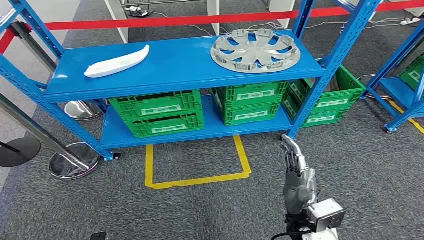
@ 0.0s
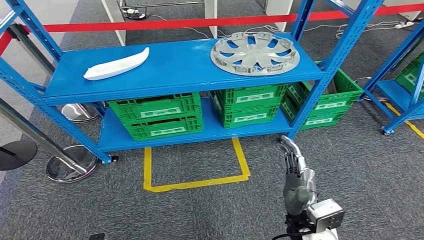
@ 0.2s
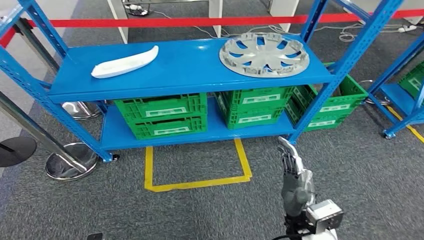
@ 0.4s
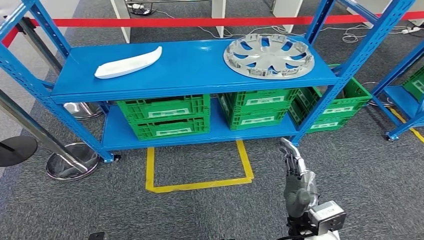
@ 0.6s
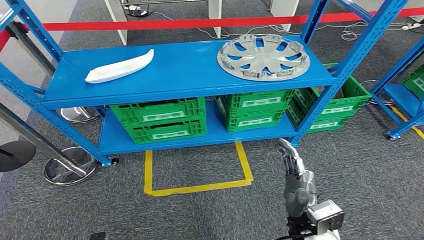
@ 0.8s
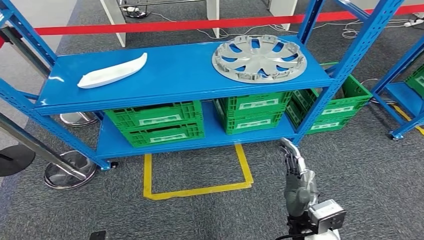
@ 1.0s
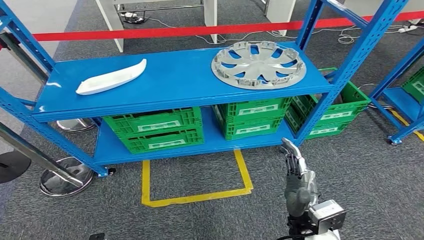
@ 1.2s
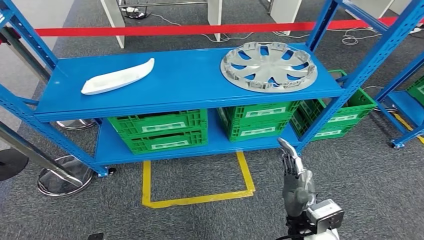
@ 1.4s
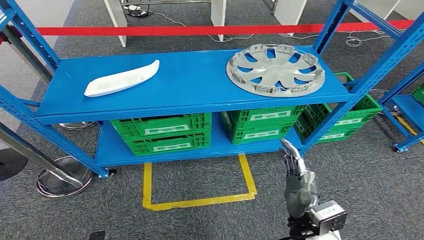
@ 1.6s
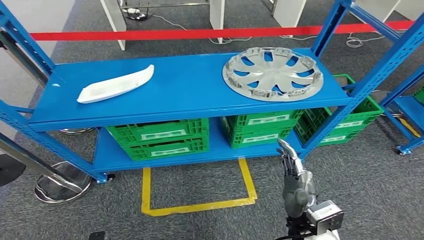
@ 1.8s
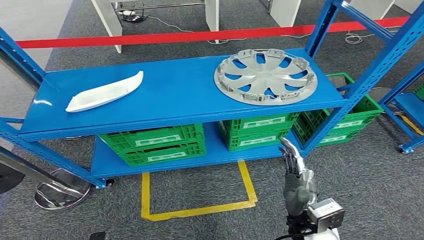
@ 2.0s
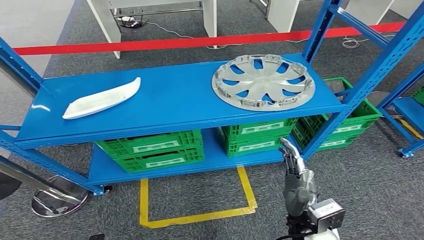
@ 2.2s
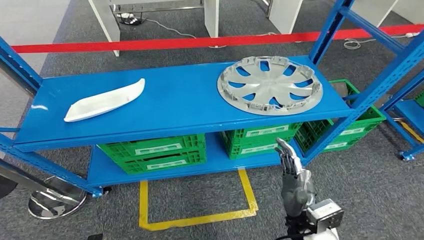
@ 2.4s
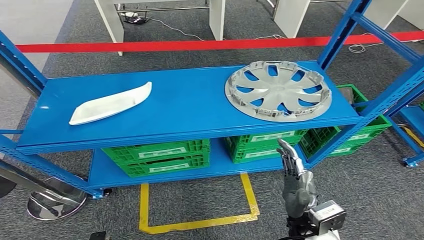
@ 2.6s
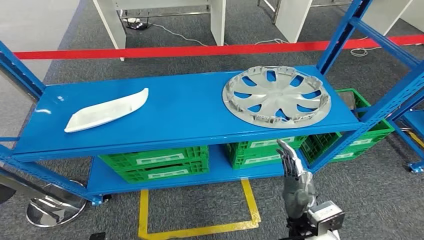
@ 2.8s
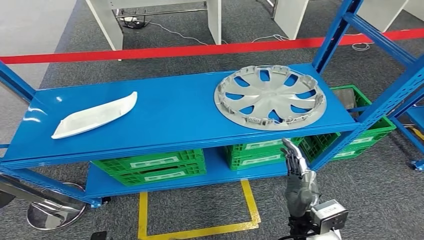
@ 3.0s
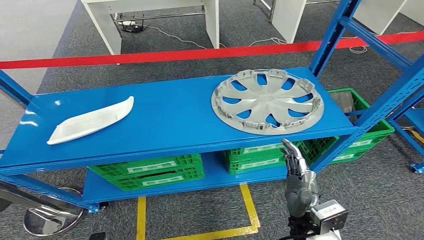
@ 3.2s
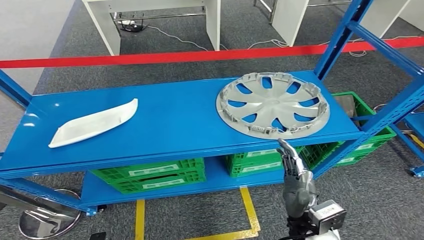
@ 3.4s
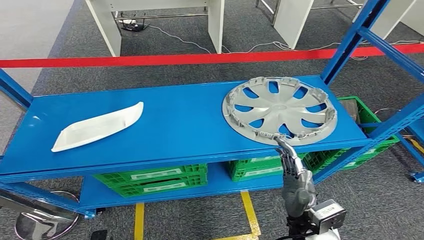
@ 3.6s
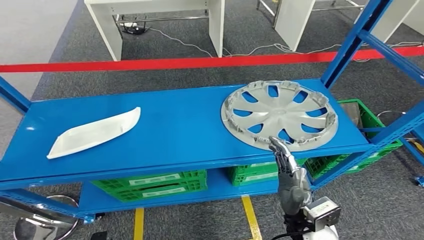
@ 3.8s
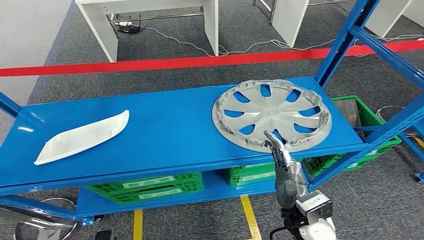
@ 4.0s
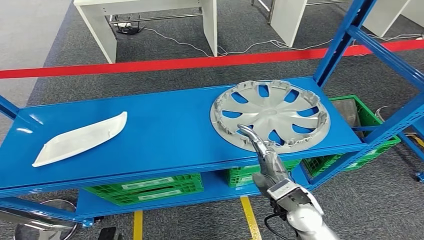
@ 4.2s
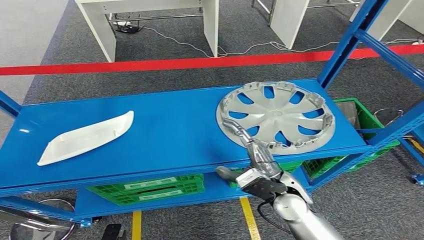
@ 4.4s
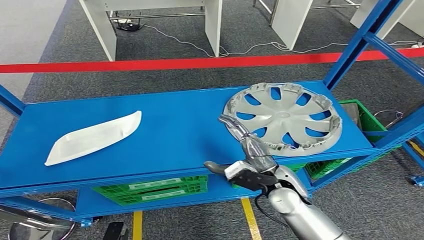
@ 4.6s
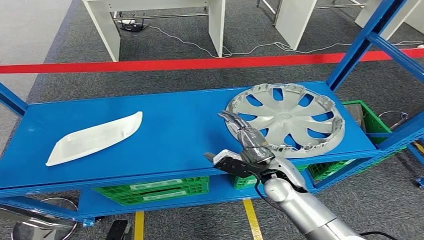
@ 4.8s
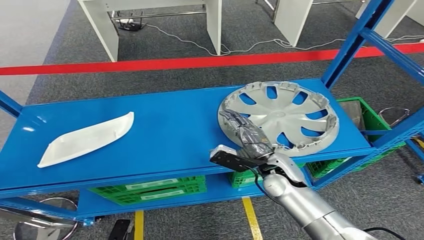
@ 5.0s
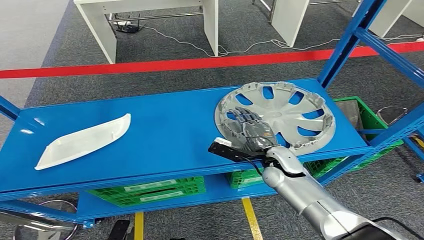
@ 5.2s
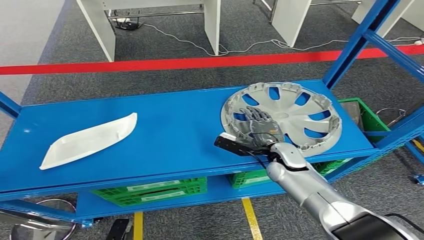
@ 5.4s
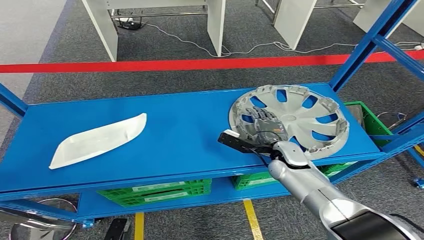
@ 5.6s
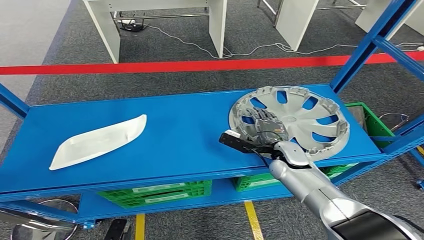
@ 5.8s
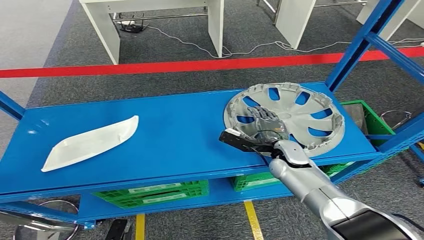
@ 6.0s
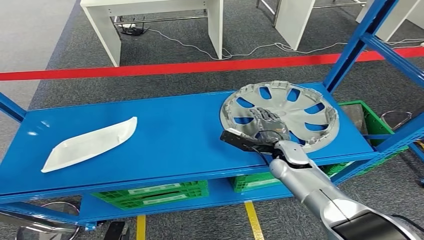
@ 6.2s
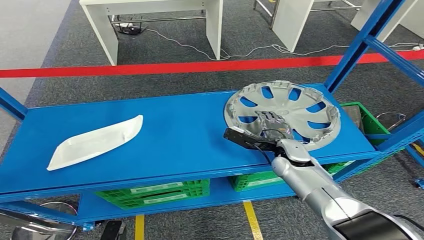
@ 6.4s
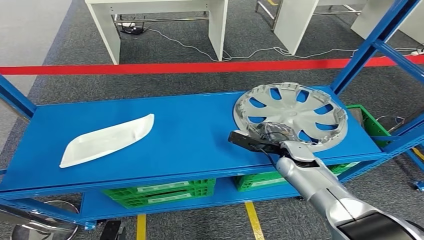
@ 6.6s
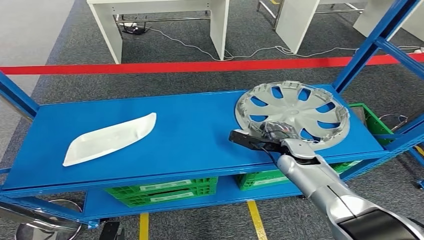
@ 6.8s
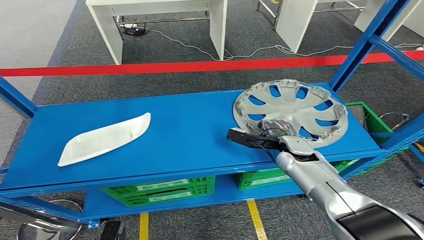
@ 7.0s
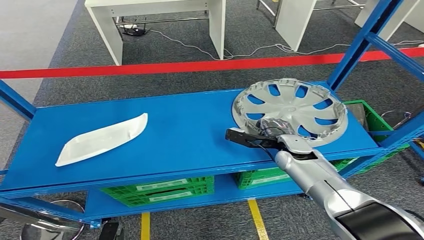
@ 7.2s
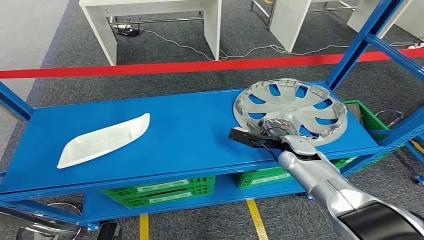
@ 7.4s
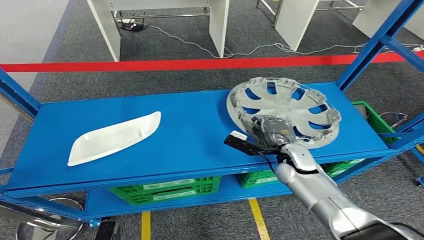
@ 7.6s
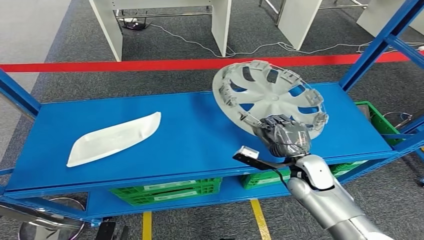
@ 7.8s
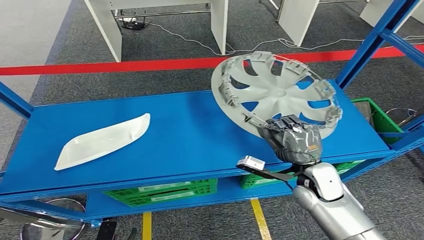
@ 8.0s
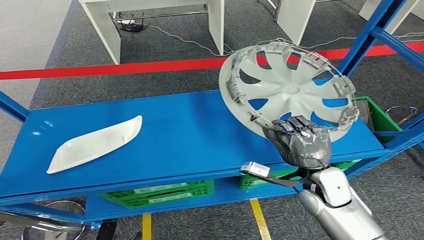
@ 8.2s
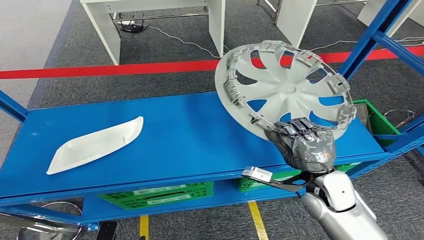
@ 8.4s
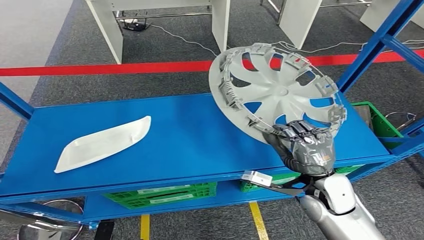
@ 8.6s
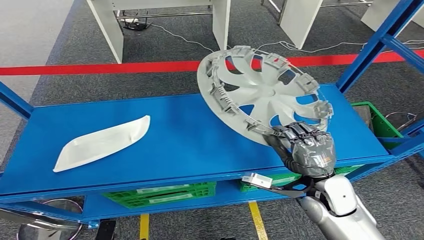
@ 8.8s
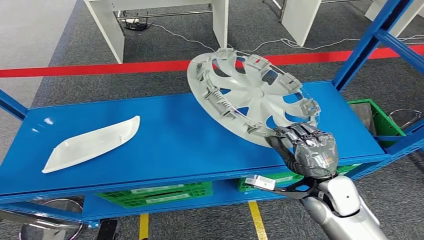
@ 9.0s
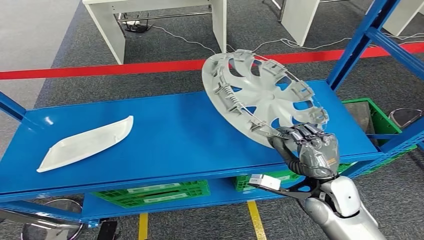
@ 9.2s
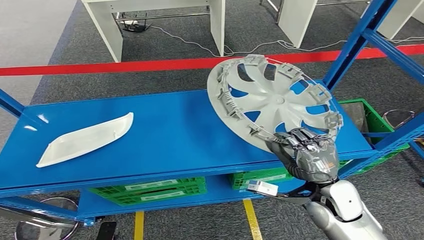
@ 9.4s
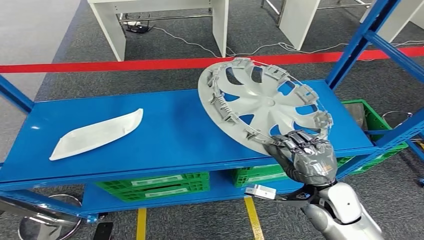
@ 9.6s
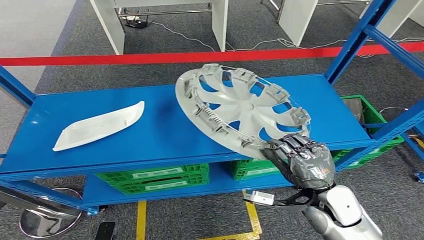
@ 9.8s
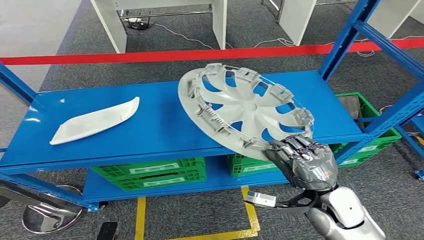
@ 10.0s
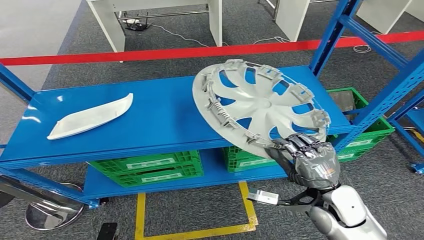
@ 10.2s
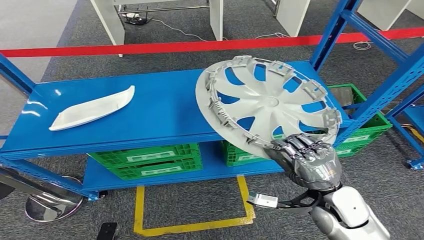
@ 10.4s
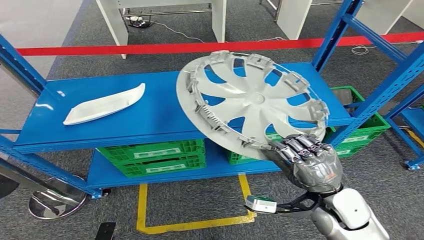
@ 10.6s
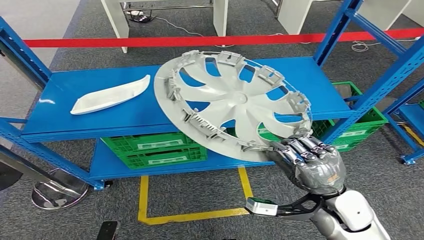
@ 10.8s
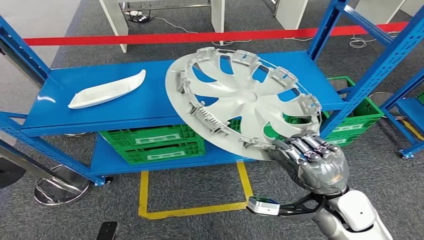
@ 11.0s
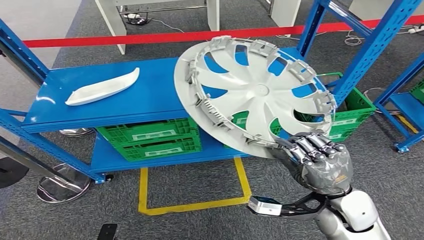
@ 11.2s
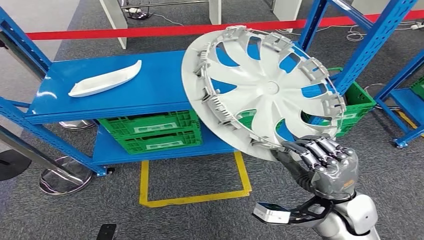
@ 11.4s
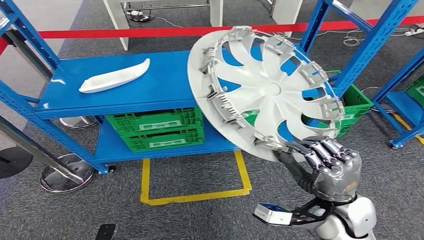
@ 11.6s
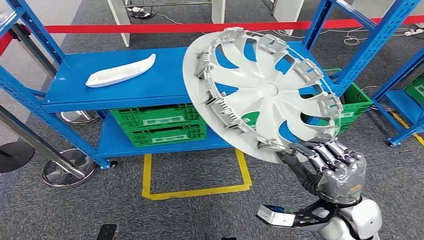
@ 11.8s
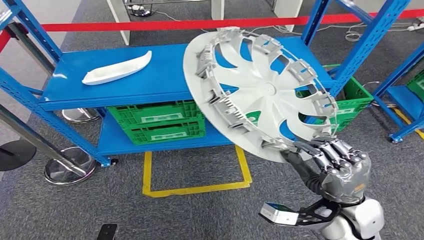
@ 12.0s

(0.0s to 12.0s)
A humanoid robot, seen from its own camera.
Step, 0.0s - 10.4s: Pick up the small component from the shelf.

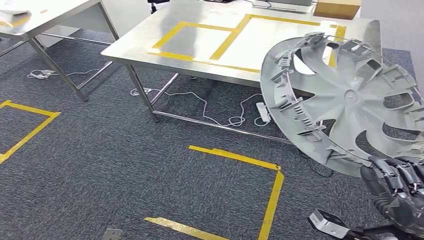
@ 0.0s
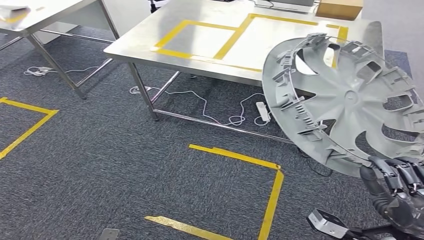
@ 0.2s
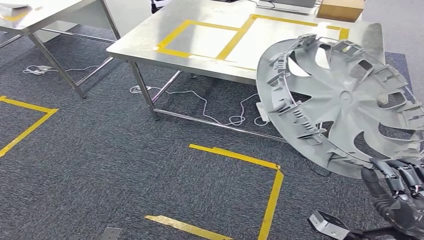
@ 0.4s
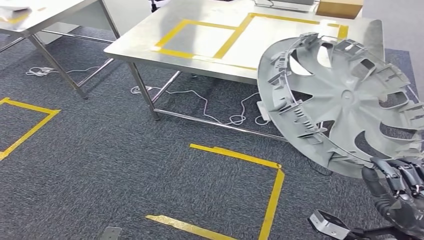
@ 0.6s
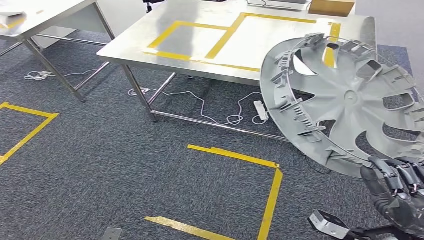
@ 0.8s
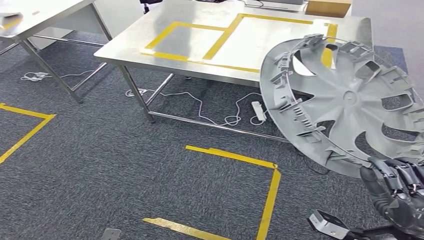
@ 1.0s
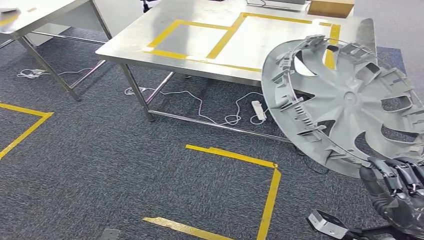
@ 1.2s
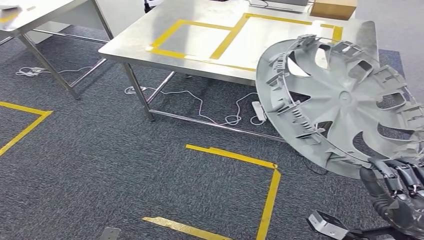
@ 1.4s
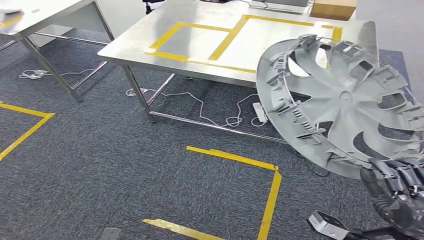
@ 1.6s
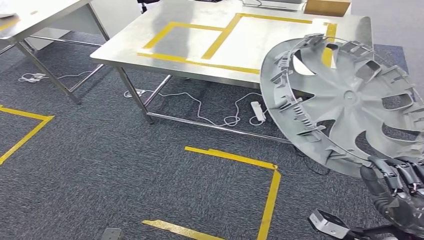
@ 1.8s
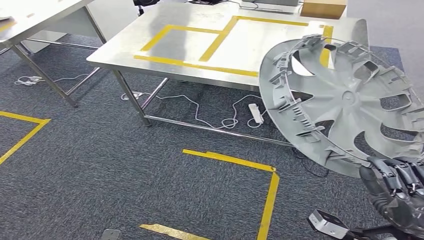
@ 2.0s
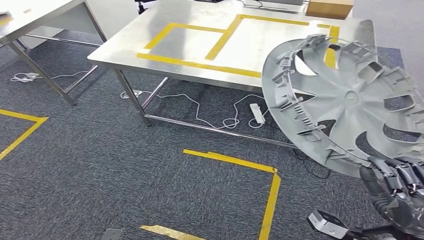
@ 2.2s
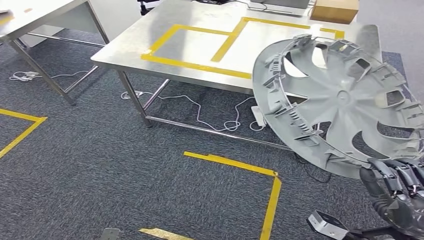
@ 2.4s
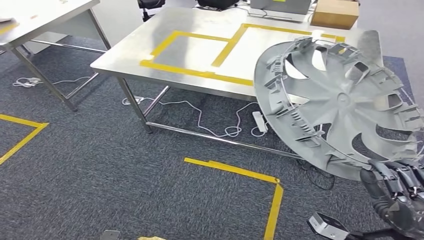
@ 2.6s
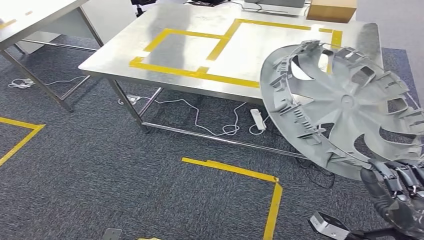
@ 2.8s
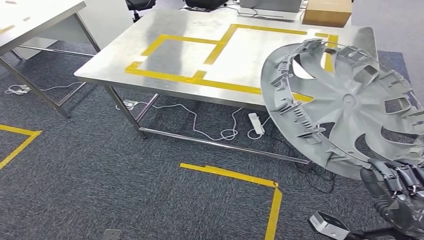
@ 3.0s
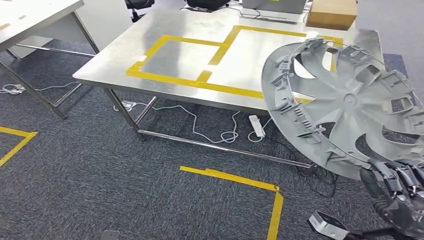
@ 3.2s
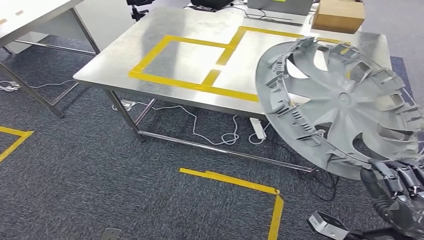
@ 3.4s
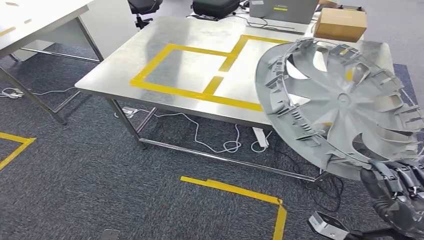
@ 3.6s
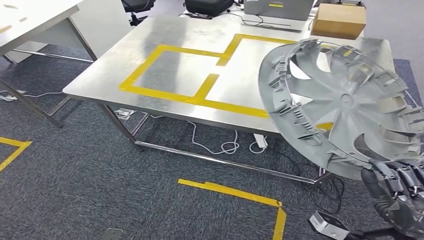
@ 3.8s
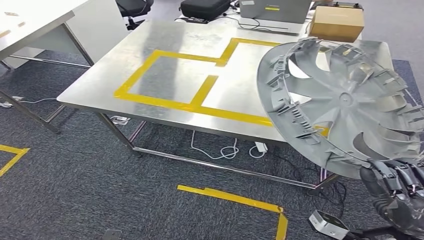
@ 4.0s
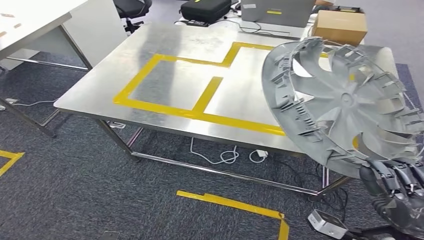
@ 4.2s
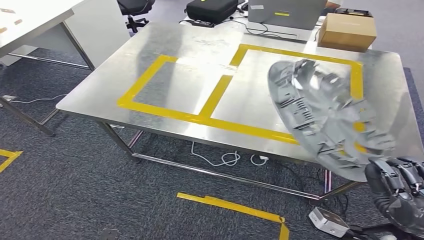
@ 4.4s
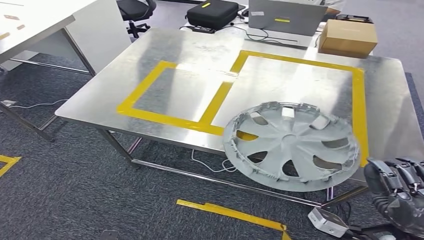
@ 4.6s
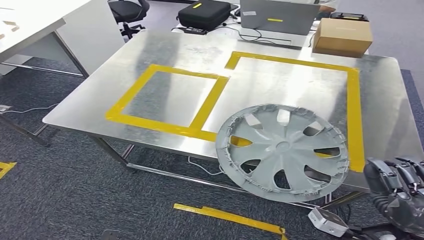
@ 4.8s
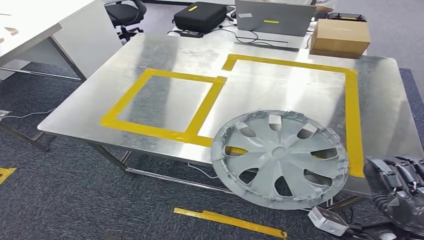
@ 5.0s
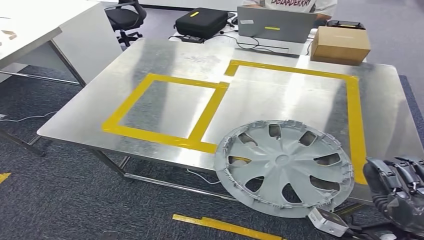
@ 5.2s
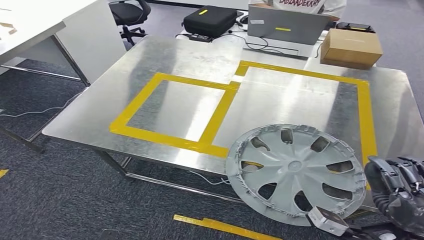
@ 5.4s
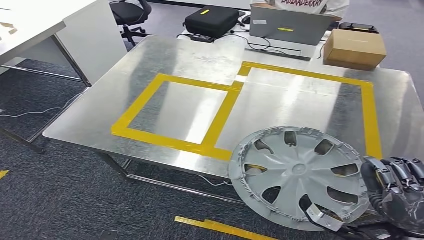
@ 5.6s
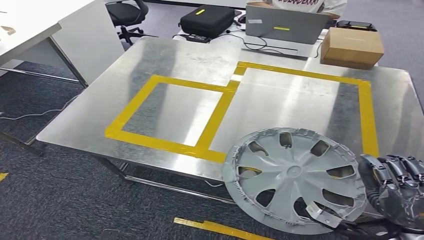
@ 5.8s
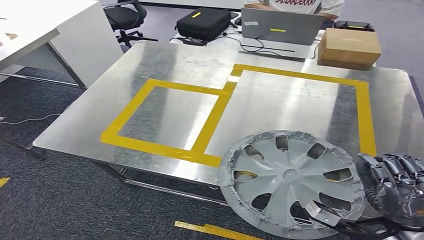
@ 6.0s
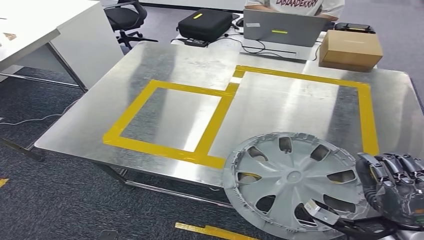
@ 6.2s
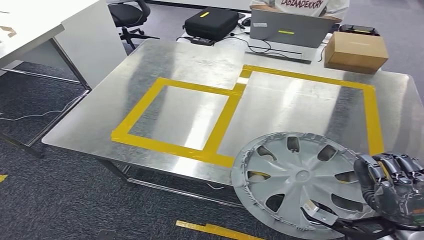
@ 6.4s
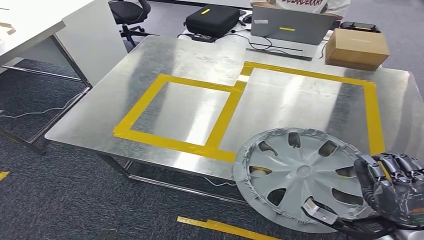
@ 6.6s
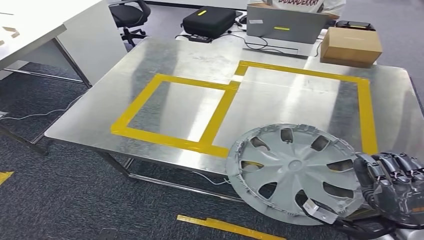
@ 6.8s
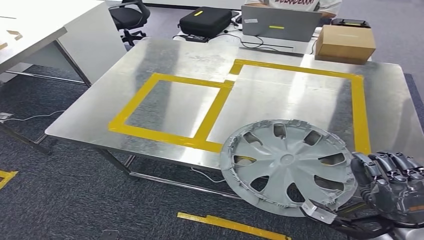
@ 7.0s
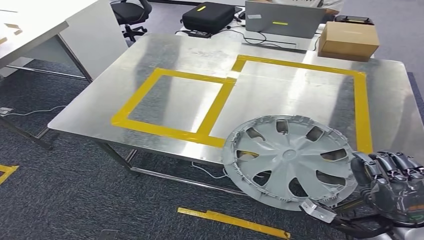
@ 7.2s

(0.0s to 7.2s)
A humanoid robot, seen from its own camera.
Step, 0.0s - 2.6s: Move the small component to the workbench.
0.0s - 1.4s: Both hands stay put.
